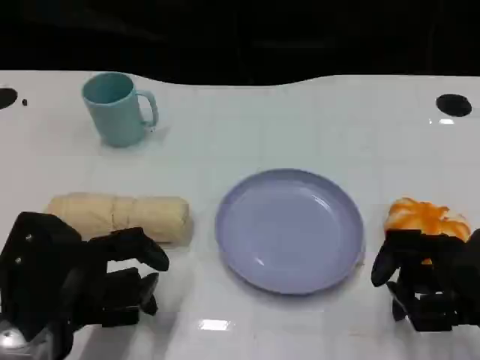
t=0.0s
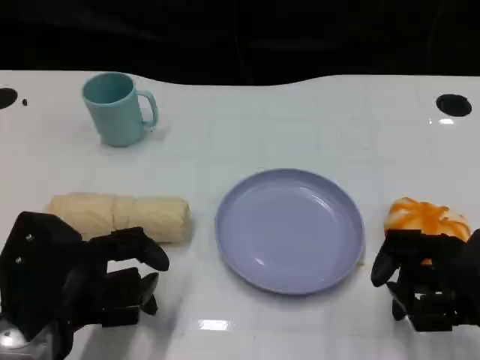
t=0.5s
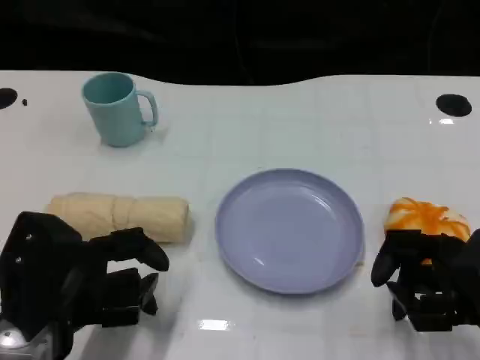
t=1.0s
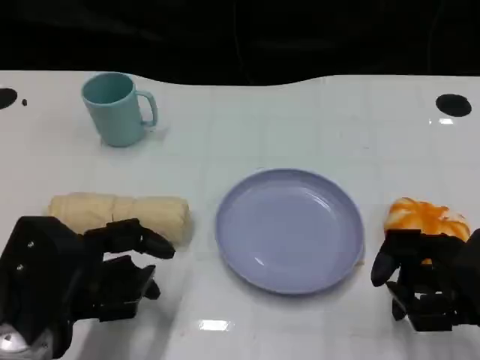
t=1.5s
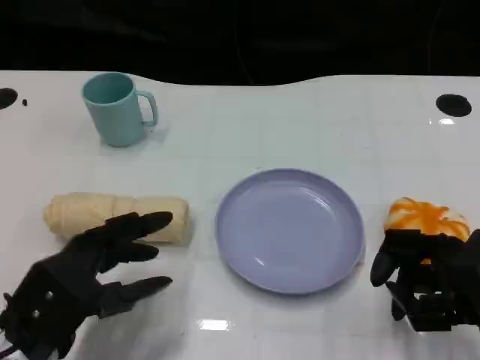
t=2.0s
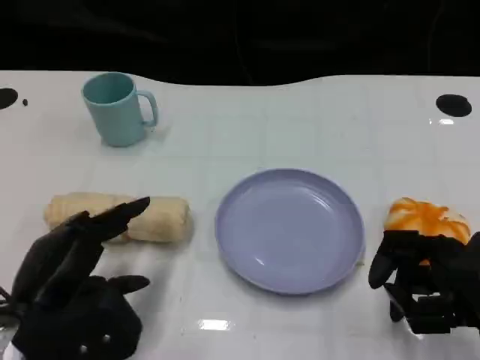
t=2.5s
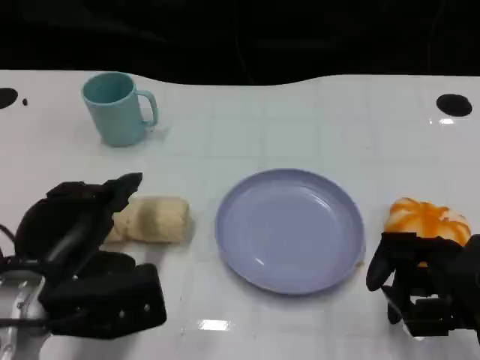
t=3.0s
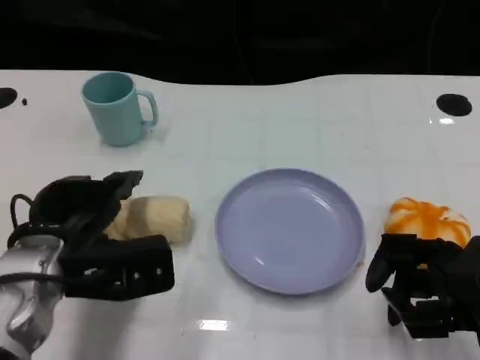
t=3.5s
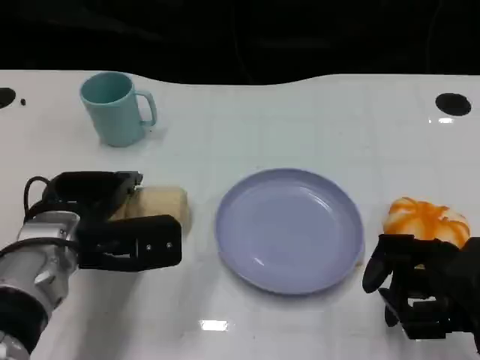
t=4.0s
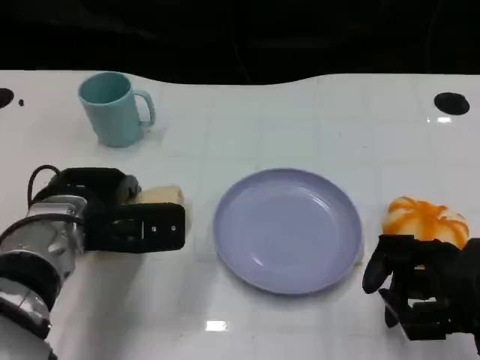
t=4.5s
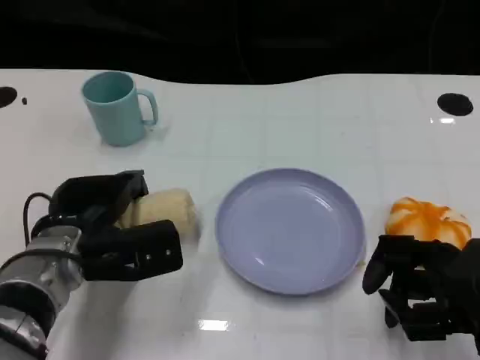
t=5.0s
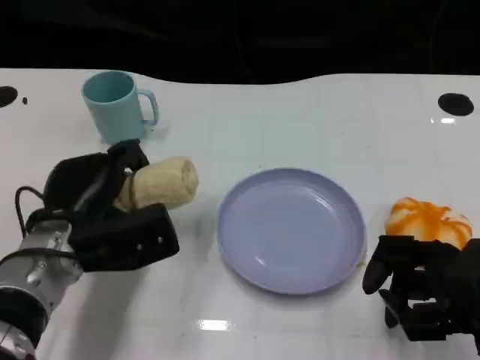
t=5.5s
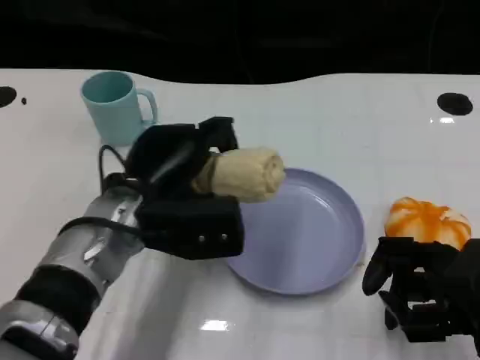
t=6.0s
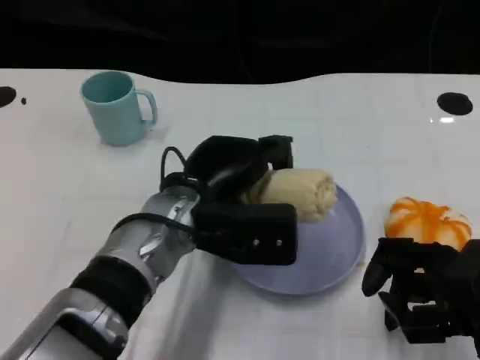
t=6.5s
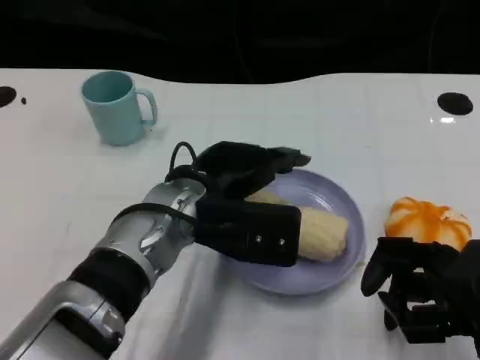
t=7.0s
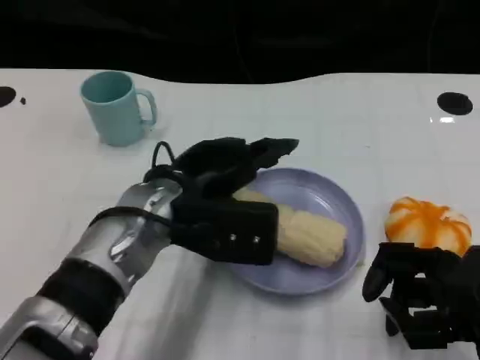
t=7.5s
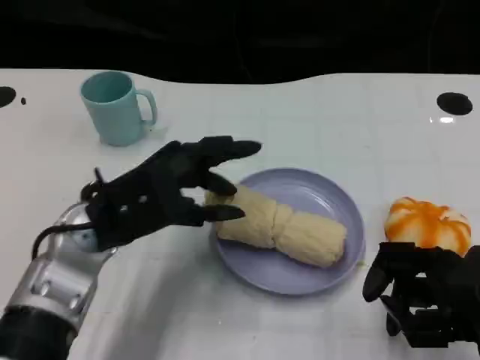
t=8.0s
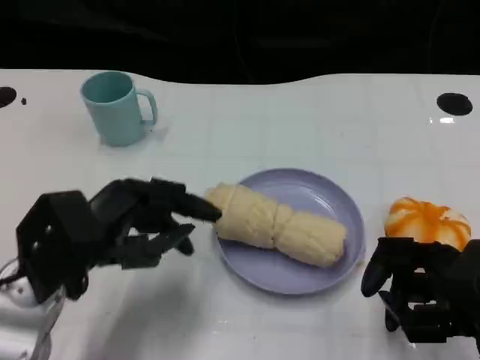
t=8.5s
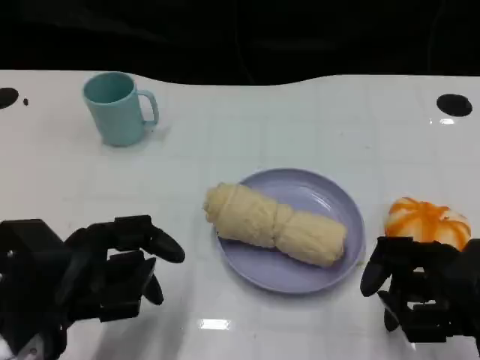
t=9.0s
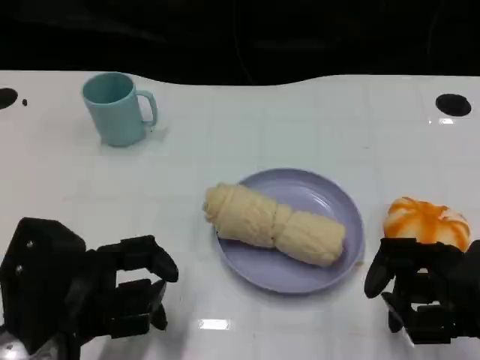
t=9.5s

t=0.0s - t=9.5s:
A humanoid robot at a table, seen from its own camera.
Task of the whole recording: Grasp the towel on the left side of the plate with the left hand and place it into the plate.
t=2.0s - t=4.0s: The left hand moves forward, approximately 10 cm.
t=5.5s - t=7.5s: The left hand travels to the right and upward by about 10 cm.
t=7.5s - t=9.5s: The left hand is displaced to the left and backward by roughly 15 cm.
